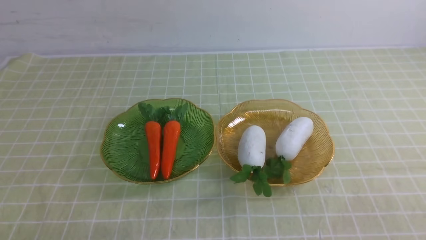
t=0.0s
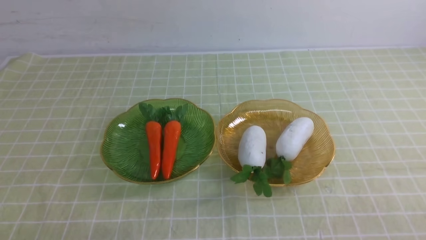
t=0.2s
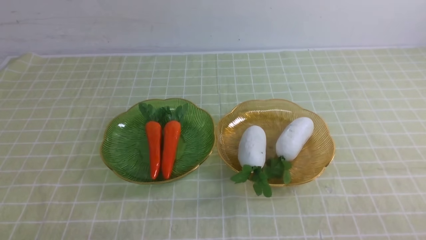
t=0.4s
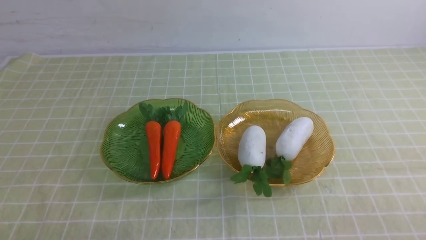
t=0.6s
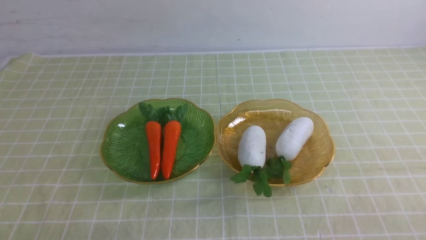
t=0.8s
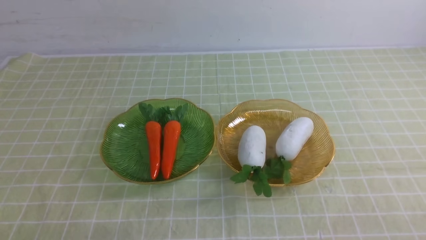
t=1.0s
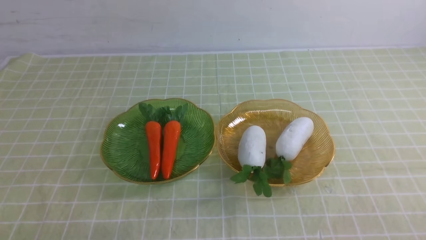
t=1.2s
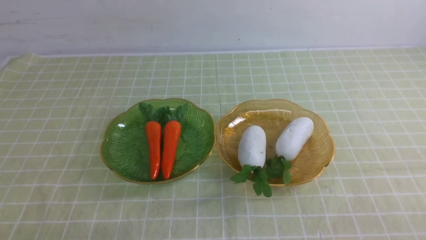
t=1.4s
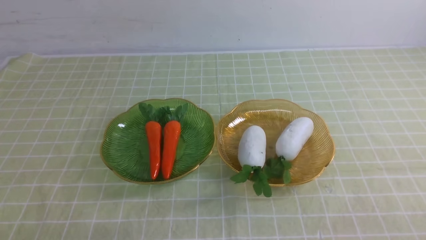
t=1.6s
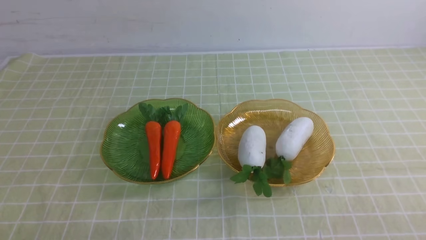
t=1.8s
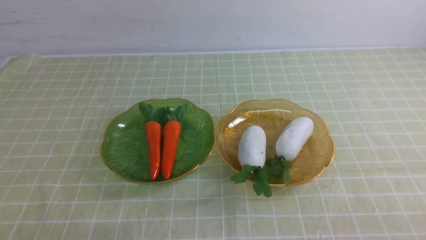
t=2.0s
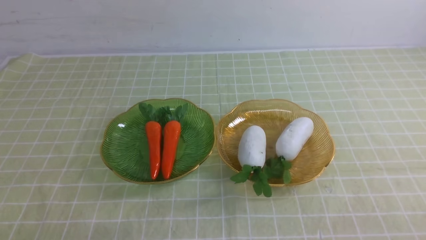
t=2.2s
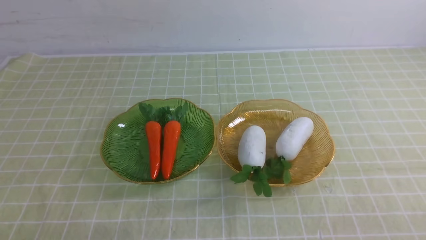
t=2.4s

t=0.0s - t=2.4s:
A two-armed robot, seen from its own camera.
t=1.2s - t=2.4s: Both grippers stay about where they are.
